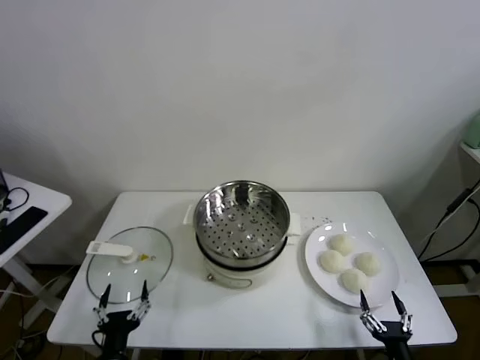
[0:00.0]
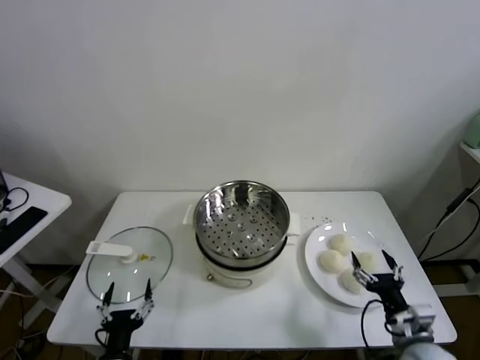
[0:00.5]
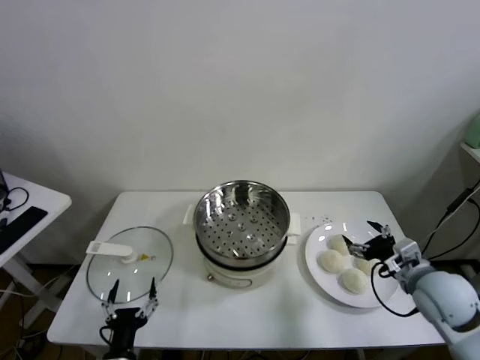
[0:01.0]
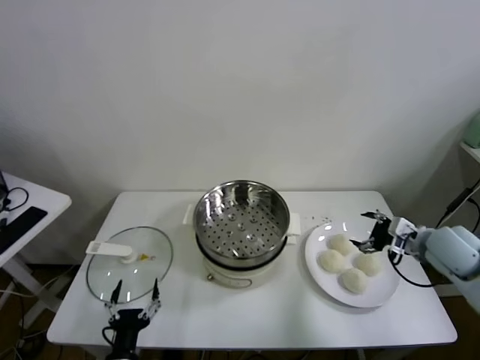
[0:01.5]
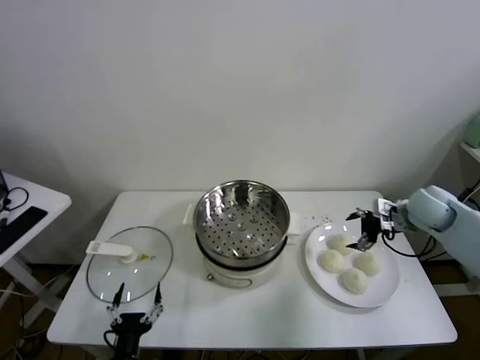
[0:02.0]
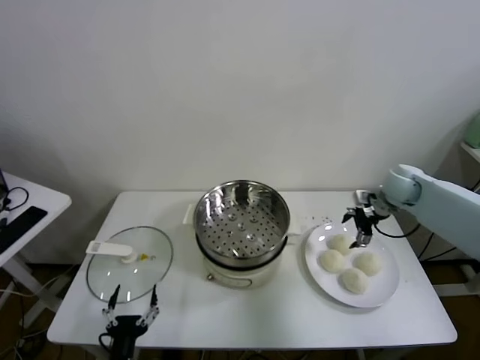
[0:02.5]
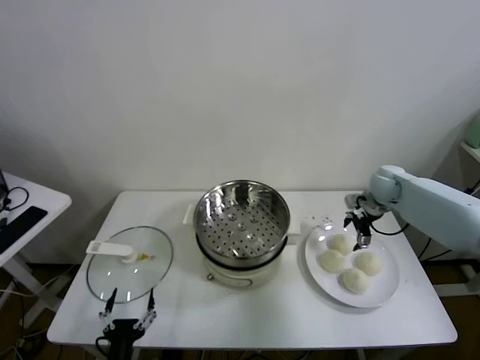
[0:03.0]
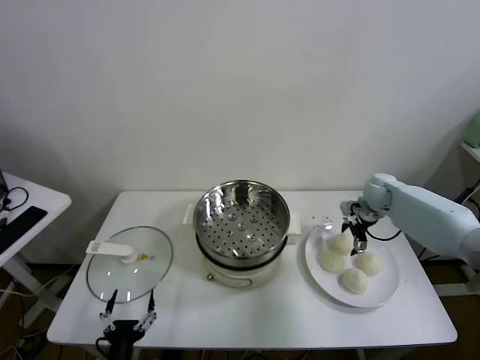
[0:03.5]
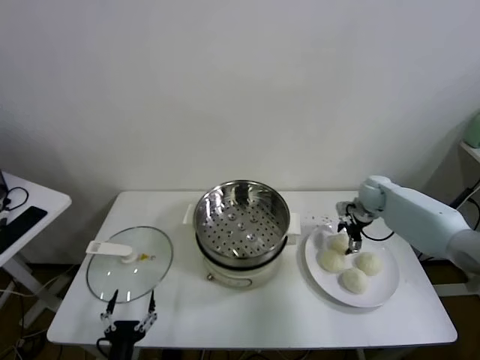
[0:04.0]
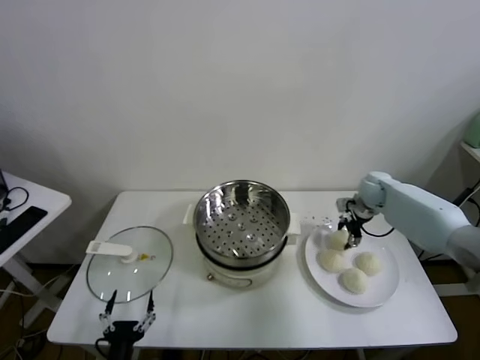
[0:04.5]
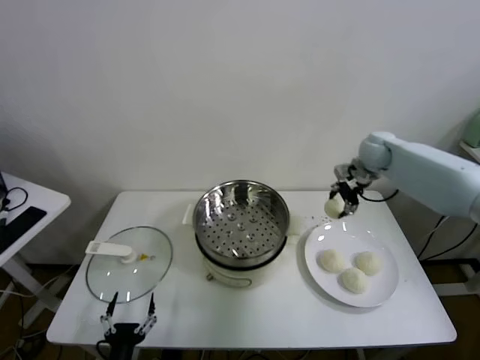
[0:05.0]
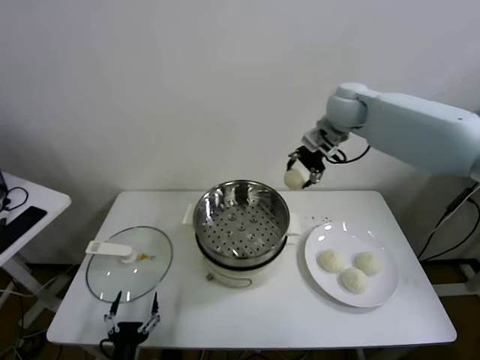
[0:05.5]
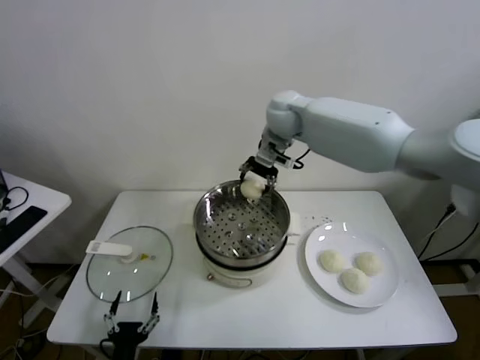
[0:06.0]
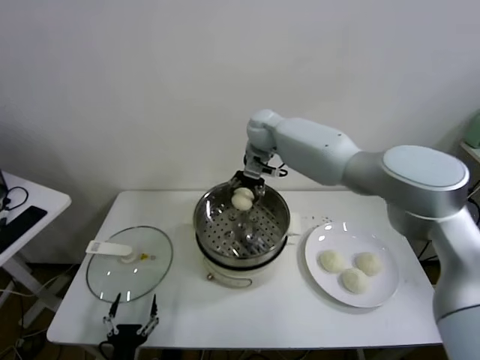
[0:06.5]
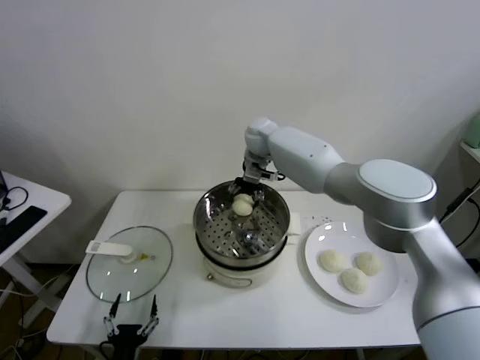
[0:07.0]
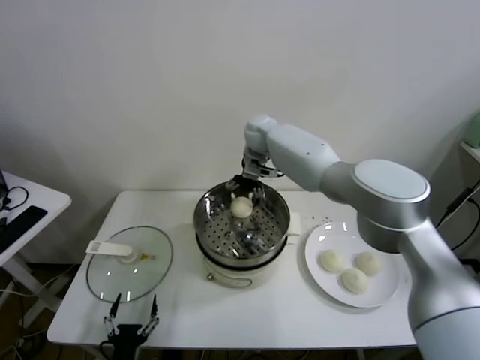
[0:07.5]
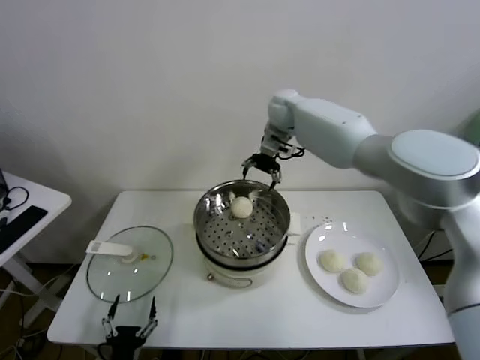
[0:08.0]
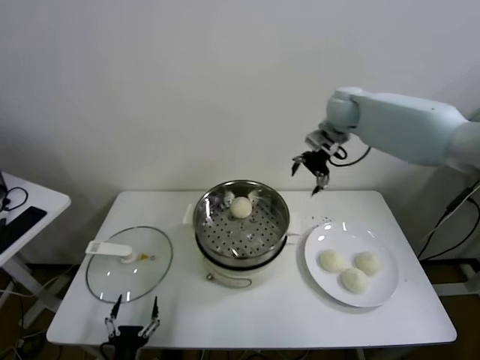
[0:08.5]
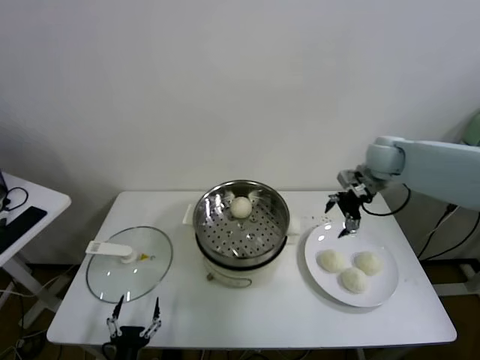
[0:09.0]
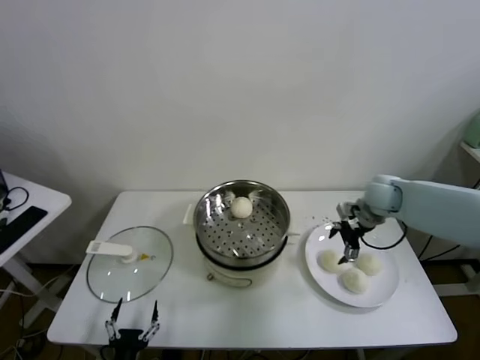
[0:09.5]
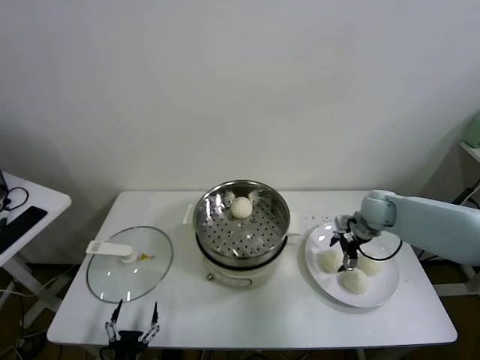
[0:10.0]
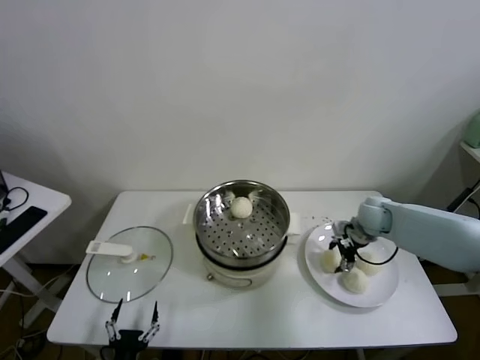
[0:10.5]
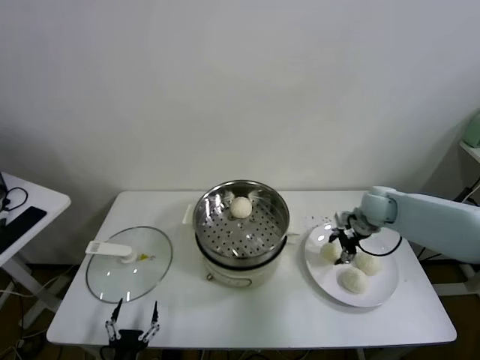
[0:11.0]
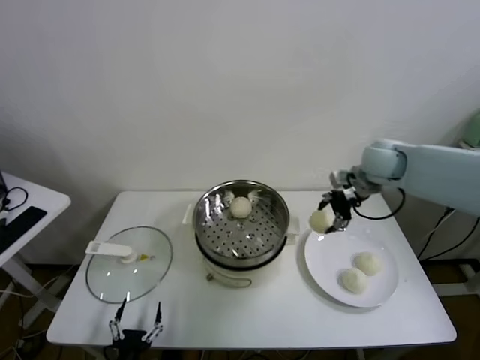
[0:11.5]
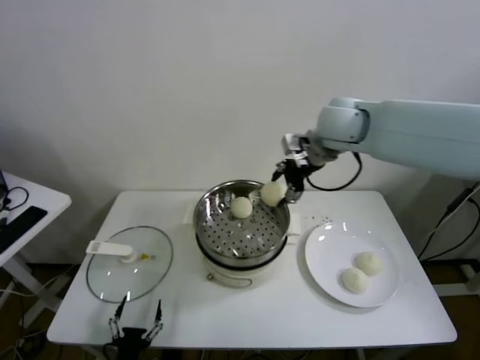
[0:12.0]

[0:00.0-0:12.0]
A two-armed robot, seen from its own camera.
Task of the whole recording: take steamed baozi put them in steamer.
Step, 0:00.0 to 0:04.0: Grasp the baozi in the plate with right gripper.
Step, 0:04.5 to 0:07.5: Place the baozi on the steamer with right gripper.
Step, 0:08.0 to 0:10.5: Grasp the baozi in the plate with right gripper.
0:02.0 to 0:04.0: The right gripper shifts about 15 cm forward and downward.
0:04.0 to 0:06.0: The right gripper shifts some 35 cm to the left and upward, and closes up.
0:06.0 to 0:08.0: The right gripper goes approximately 5 cm forward, goes downward and returns, roughly 10 cm each way, and opens its fingers.
0:08.0 to 0:10.0: The right gripper goes about 35 cm to the right, downward and backward.
0:10.0 to 0:12.0: The right gripper is displaced upward and to the left by some 30 cm, and closes.

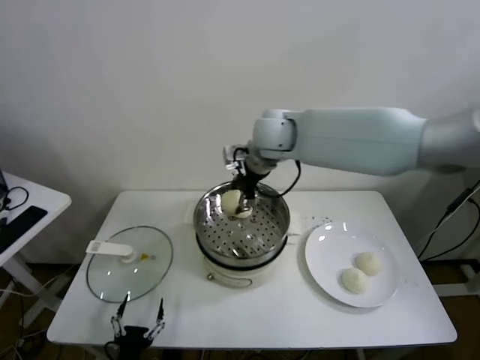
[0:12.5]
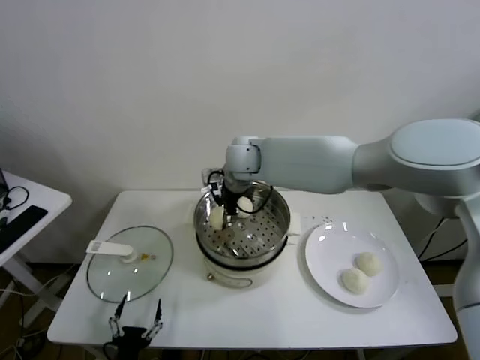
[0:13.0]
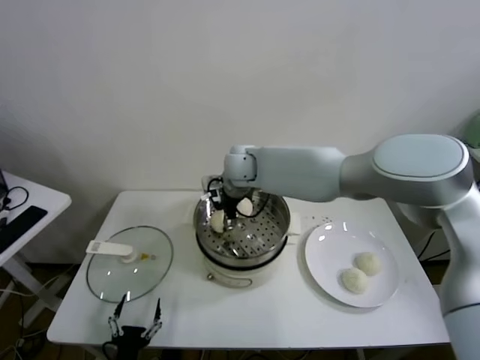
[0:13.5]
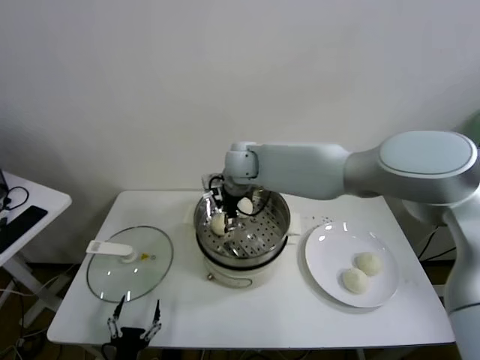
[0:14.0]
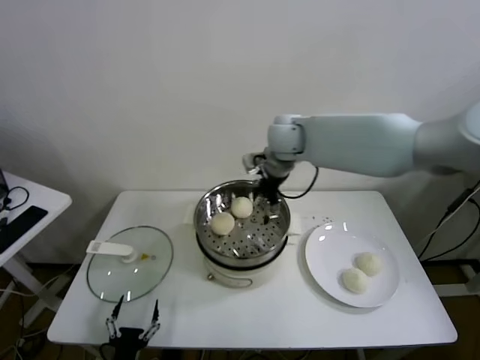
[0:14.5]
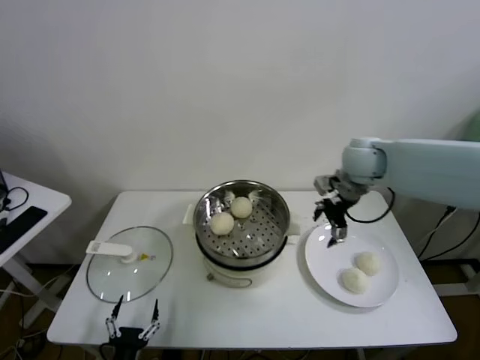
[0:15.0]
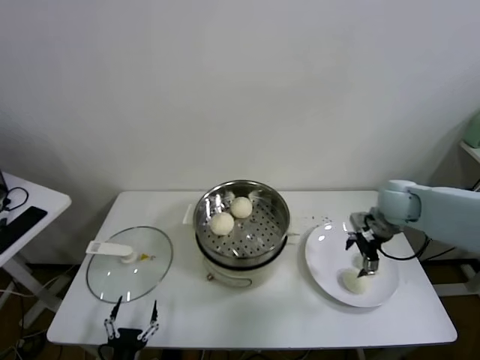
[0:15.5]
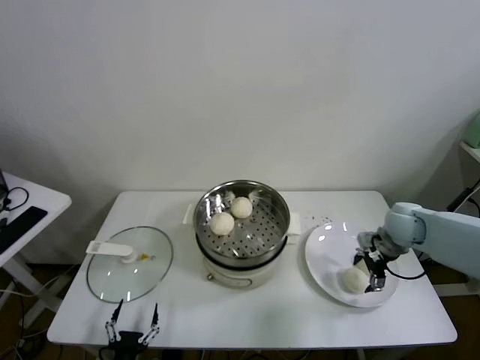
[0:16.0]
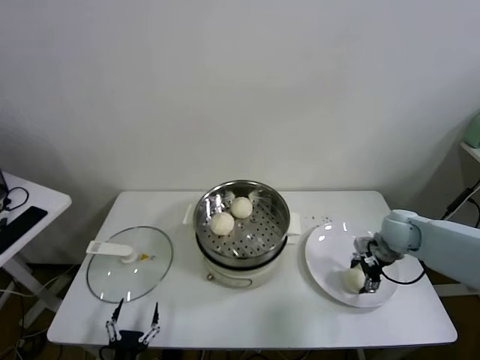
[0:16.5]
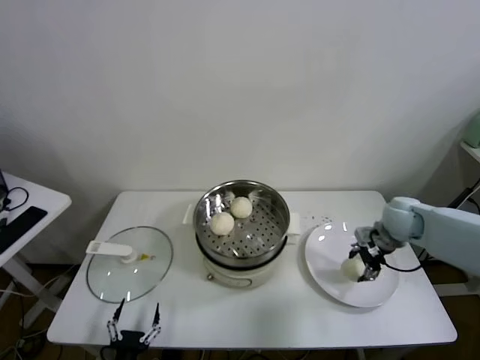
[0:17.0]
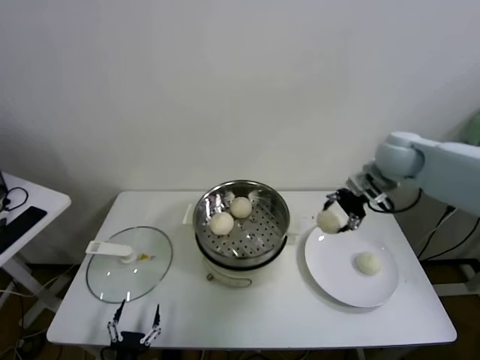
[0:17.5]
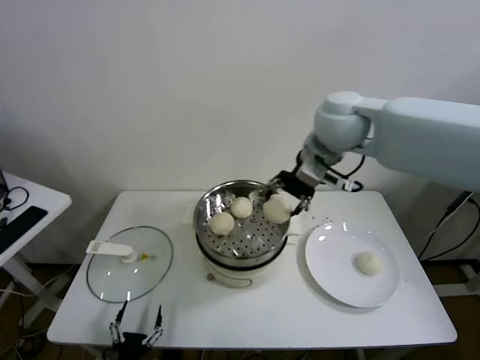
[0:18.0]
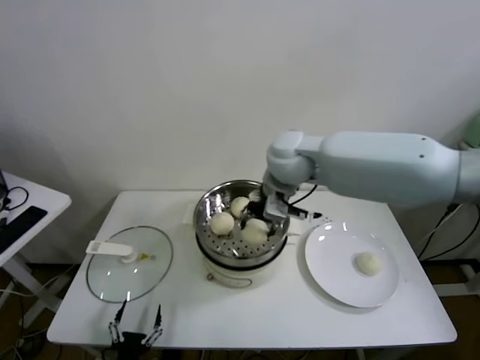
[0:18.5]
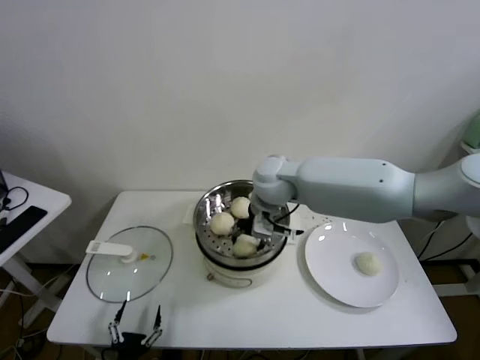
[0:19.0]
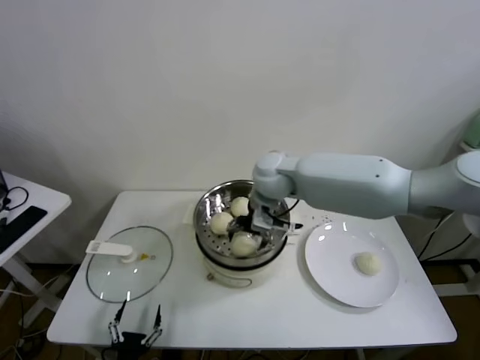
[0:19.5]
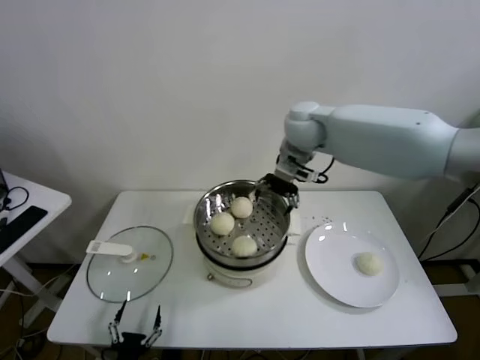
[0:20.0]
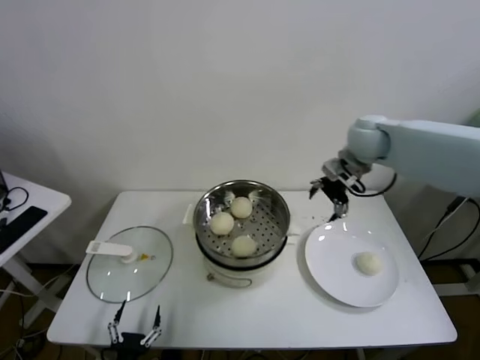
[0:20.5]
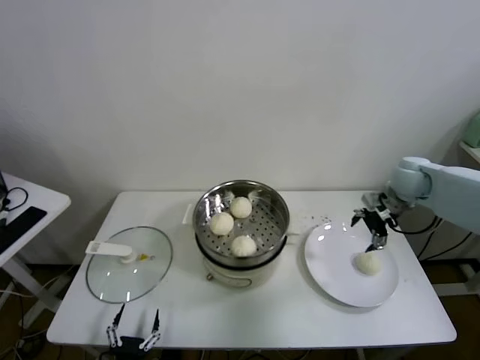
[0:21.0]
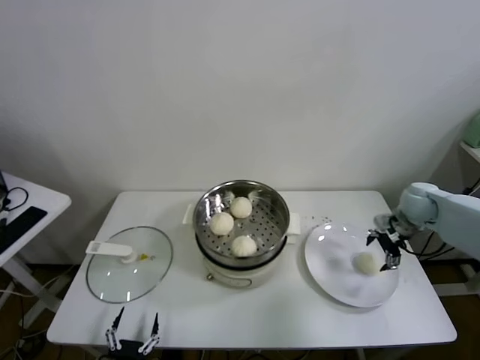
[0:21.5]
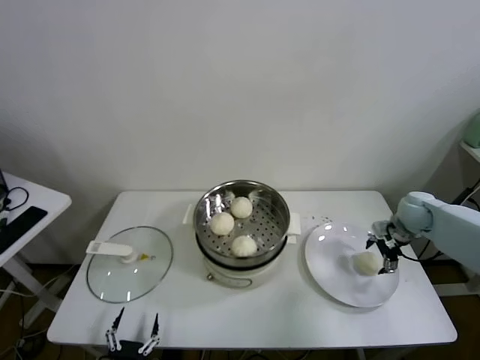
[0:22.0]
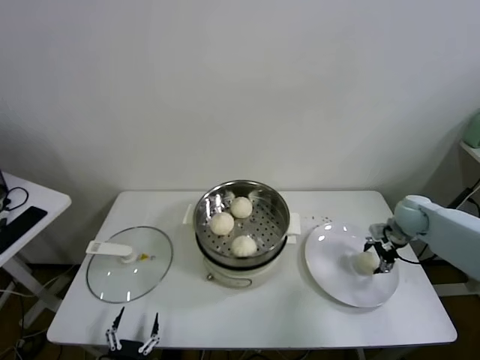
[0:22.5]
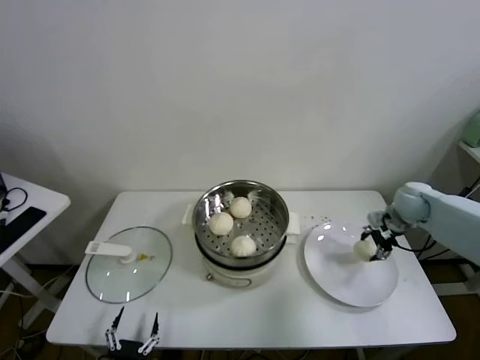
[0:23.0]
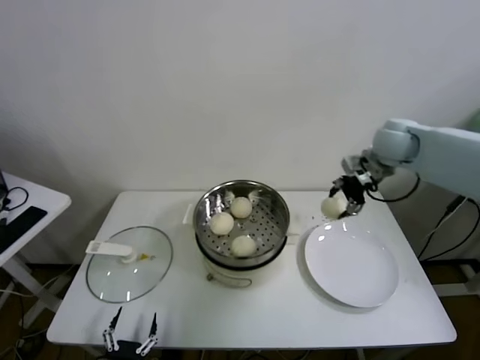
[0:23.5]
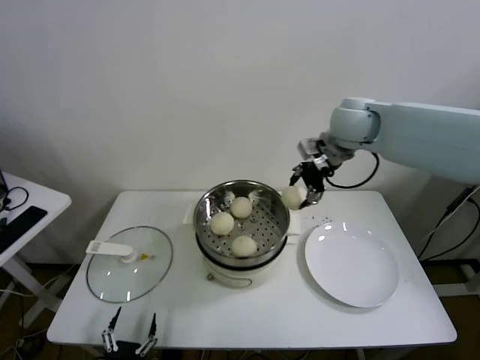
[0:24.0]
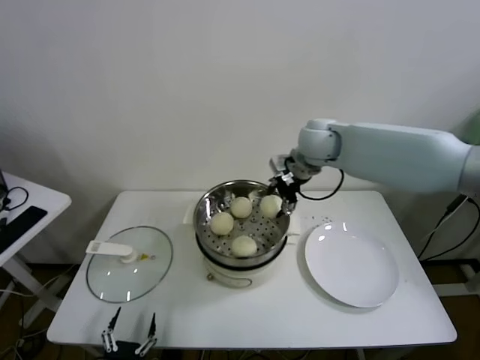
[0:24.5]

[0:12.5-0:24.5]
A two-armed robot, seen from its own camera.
Task of the whole recording: take steamed baozi put them in steamer.
Step, 0:14.0 to 0:16.5: Grasp the baozi in the plate with right gripper.
Step, 0:17.0 to 0:19.5: Place the baozi on the steamer with right gripper.
Step, 0:20.0 to 0:22.5: Grasp the baozi in the plate with right gripper.
0:12.5 to 0:14.5: The right gripper opens.
0:14.5 to 0:16.5: The right gripper travels to the right and downward by about 35 cm, and closes up.
0:16.5 to 0:18.5: The right gripper goes some 35 cm to the left and upward, and closes its fingers.
0:18.5 to 0:20.5: The right gripper travels to the right by roughly 20 cm, and opens.
0:20.5 to 0:22.5: The right gripper heads downward and to the right, covering about 25 cm.
0:22.5 to 0:24.5: The right gripper is displaced to the left and upward by some 35 cm, and closes its fingers.

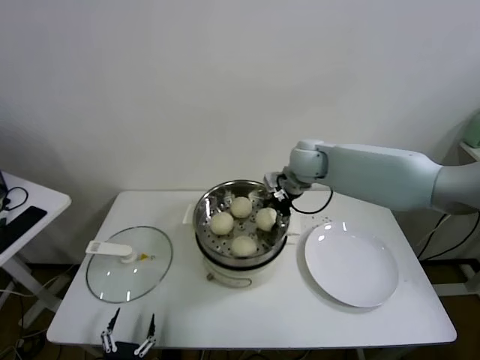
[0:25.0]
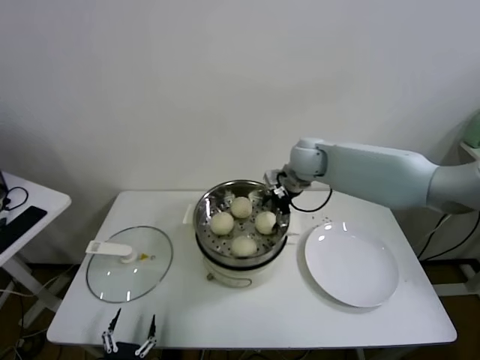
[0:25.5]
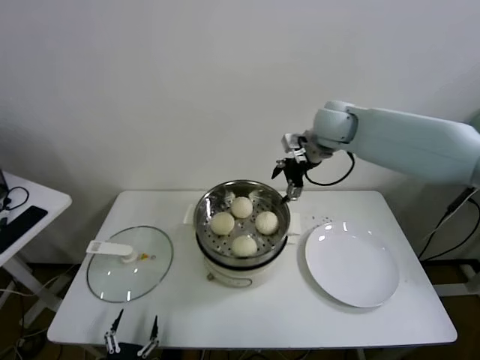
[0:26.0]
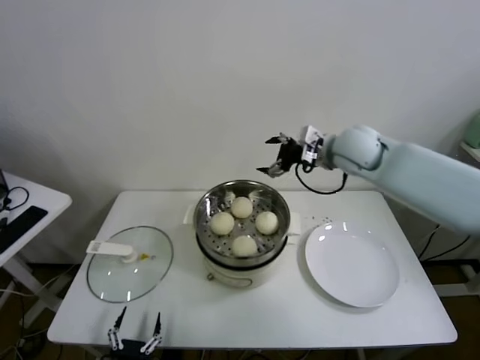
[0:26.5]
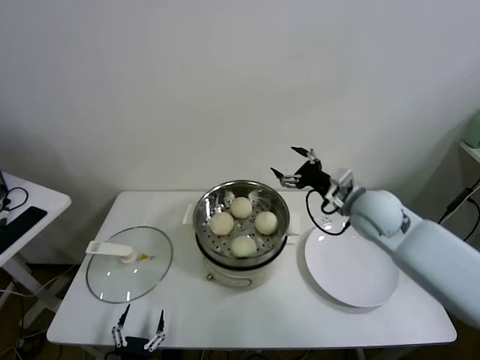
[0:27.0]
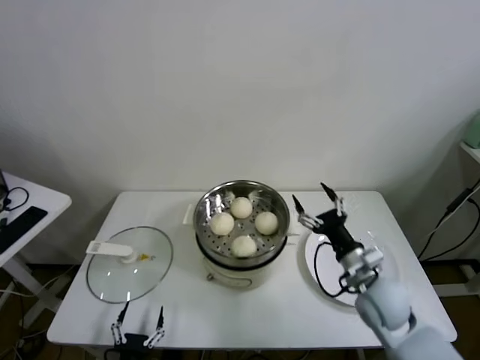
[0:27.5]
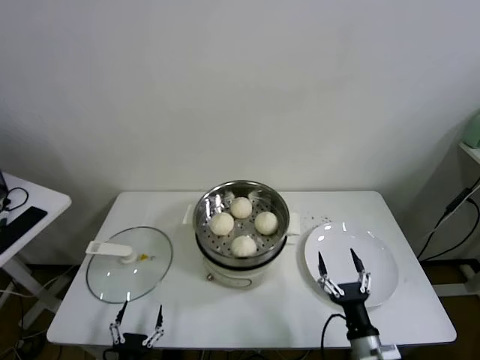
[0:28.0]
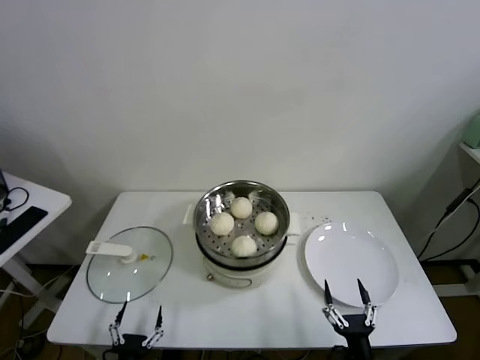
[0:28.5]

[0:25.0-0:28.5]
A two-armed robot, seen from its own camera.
Task of the whole recording: take steamed baozi put them in steamer.
0:25.0 to 0:27.0: The right gripper travels to the right and backward by roughly 15 cm, and opens.
0:27.0 to 0:28.5: The right gripper heads backward and downward, covering about 40 cm.
